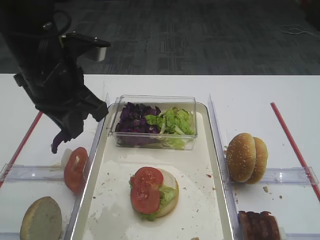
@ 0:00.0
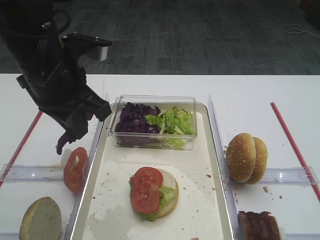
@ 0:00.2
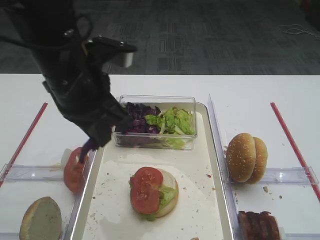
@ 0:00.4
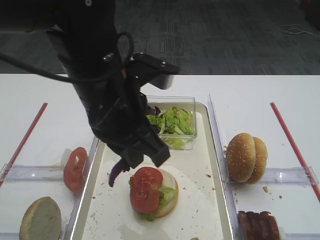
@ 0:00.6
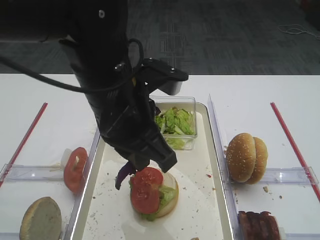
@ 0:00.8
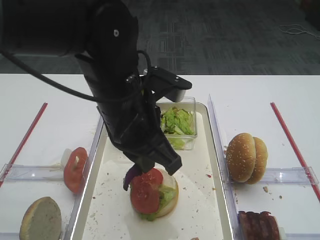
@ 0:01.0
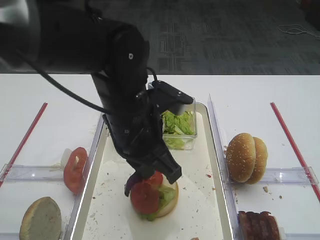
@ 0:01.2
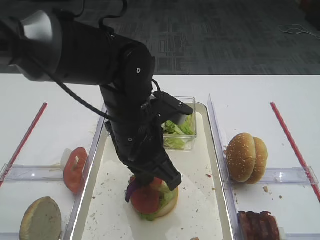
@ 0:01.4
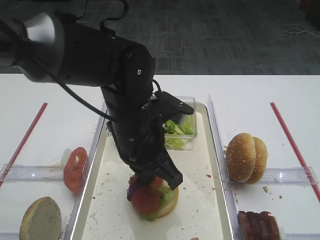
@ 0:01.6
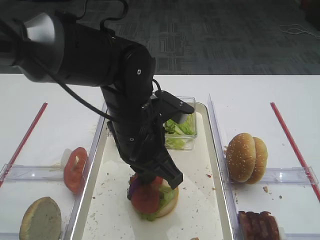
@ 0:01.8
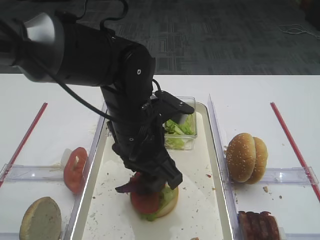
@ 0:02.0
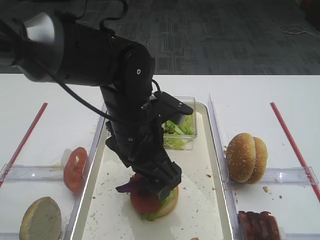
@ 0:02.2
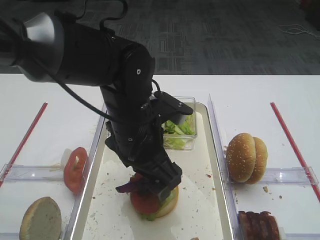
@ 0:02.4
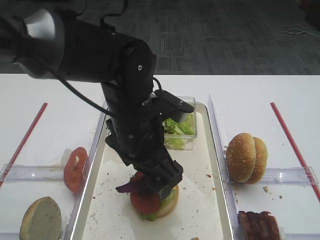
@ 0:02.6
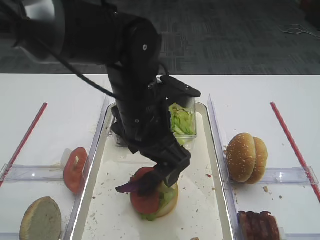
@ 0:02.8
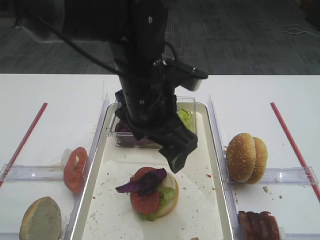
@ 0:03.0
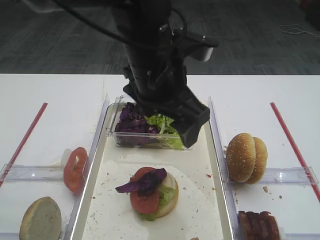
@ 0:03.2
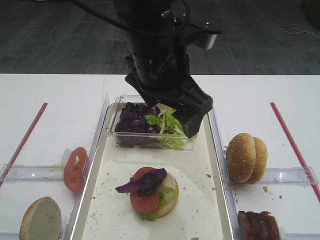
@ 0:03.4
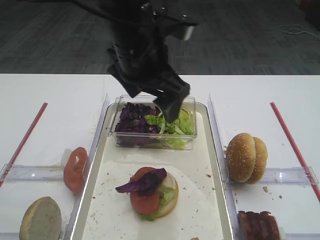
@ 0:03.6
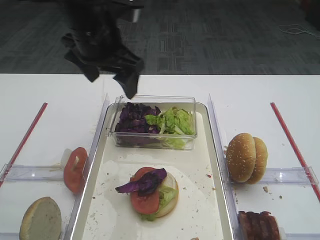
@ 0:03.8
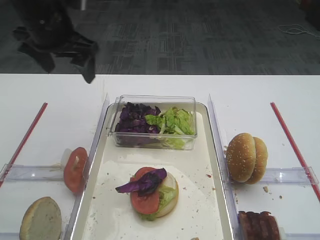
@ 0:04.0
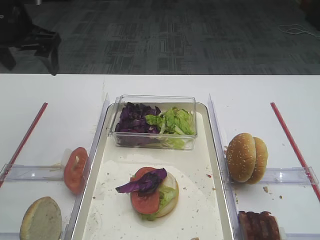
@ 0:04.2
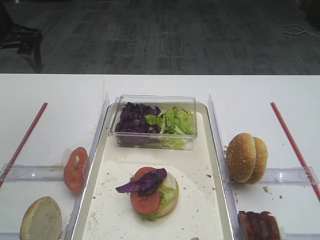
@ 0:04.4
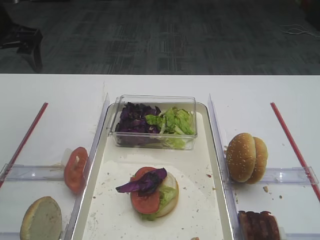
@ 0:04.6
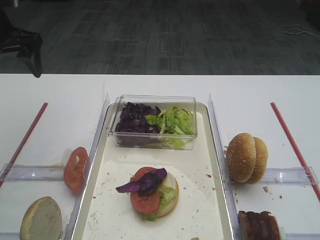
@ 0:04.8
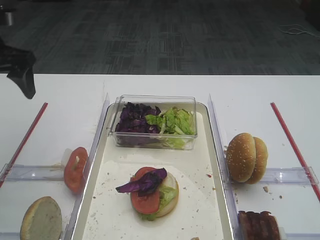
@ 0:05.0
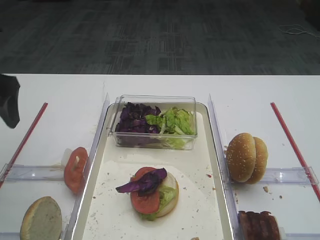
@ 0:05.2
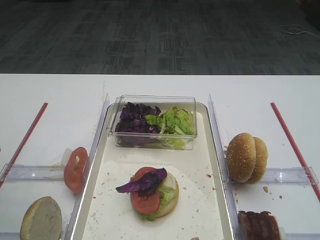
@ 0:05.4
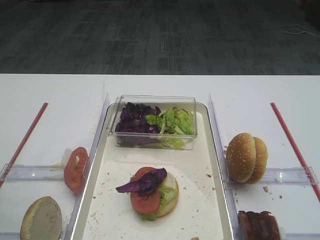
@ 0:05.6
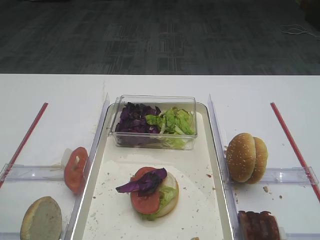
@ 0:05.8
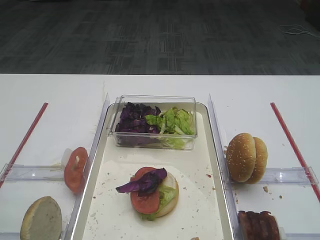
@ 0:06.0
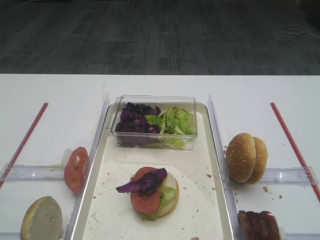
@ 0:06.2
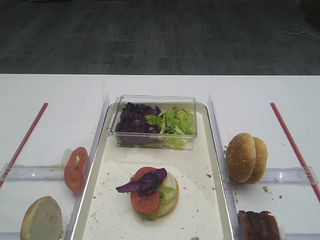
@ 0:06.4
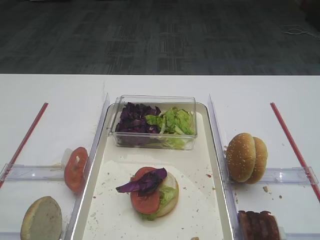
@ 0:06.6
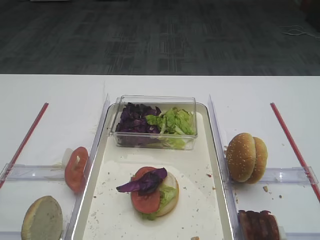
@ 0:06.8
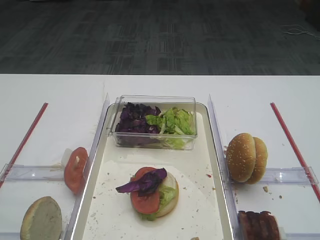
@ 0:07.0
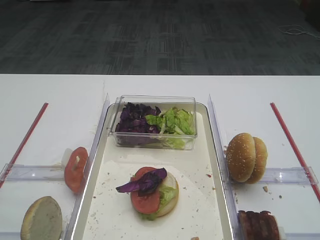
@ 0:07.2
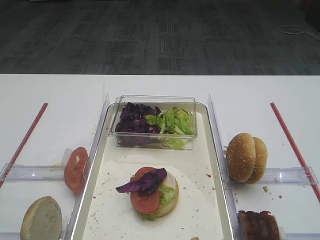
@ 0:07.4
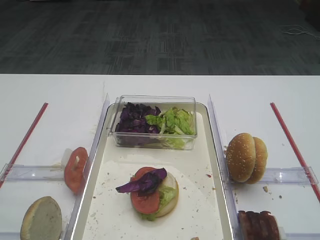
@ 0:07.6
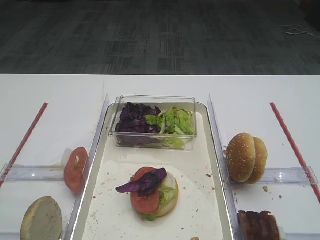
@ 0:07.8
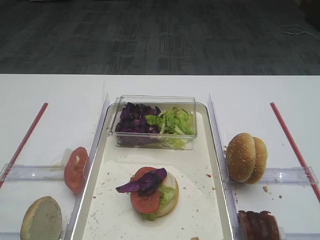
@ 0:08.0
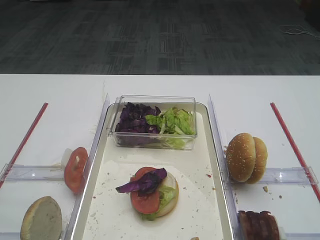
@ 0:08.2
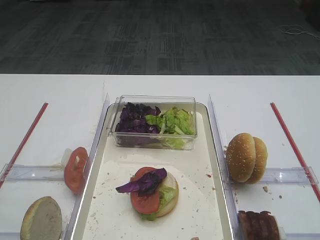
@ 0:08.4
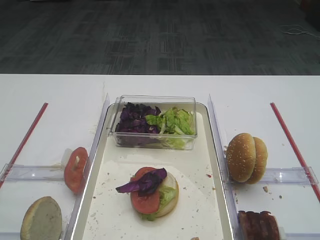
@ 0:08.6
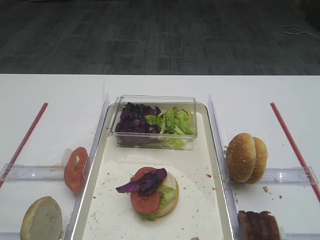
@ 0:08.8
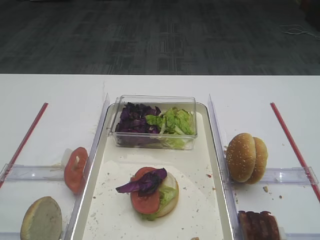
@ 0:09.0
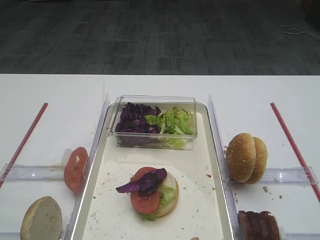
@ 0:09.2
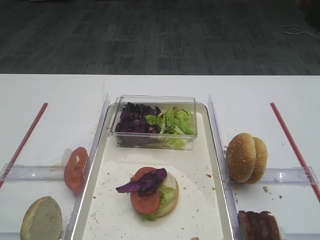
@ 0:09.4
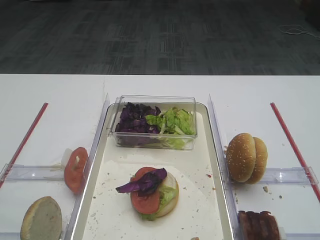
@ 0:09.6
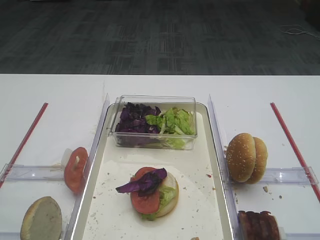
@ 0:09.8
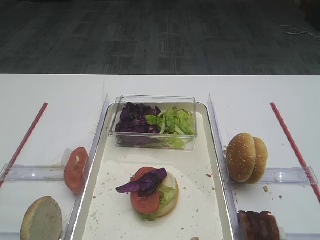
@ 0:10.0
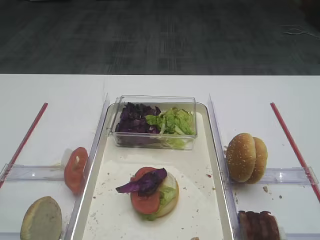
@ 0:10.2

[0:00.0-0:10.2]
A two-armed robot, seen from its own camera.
Step, 0:00.0 to 0:02.8: Place the purple cabbage on the tomato slice with the left gripper.
0:00.0 to 0:01.4: The left gripper shifts roughly 15 cm to the right and downward.
0:01.4 to 0:03.0: The left gripper changes place by approximately 5 cm, and opens up.
0:03.0 to 0:04.4: The left gripper heads to the left and forward, covering about 30 cm.
0:04.4 to 0:05.8: The left gripper travels backward by approximately 25 cm.
0:07.2 to 0:10.2: Neither gripper changes place.
